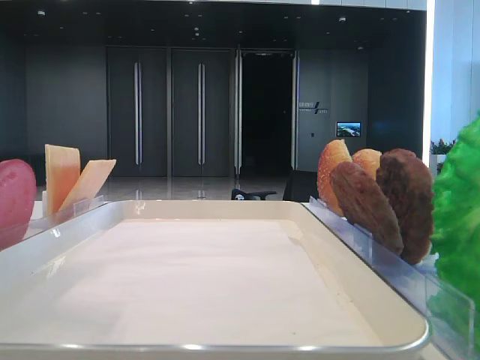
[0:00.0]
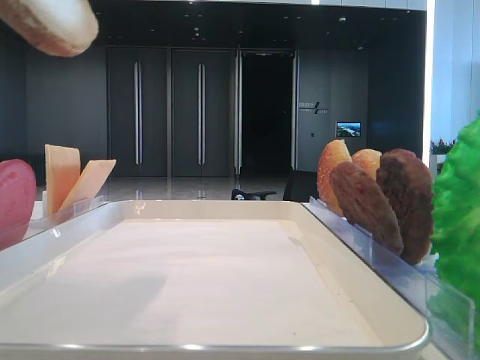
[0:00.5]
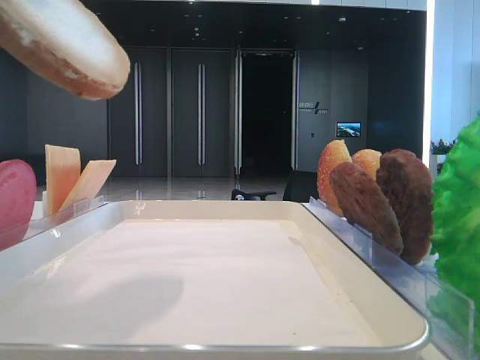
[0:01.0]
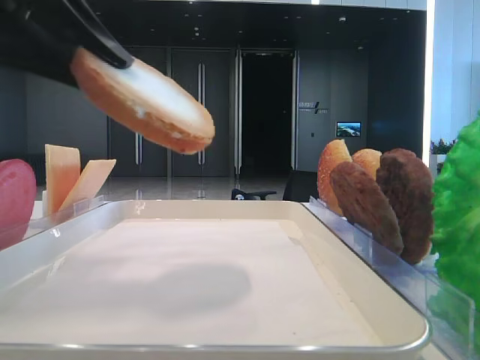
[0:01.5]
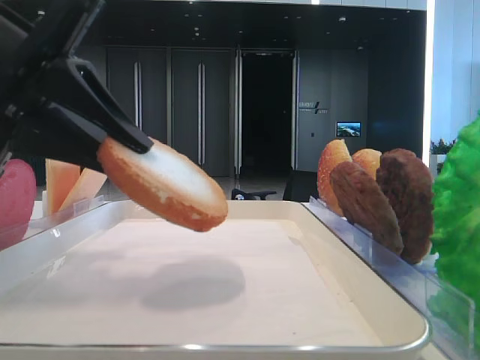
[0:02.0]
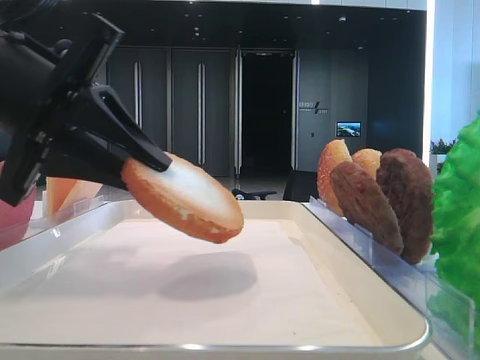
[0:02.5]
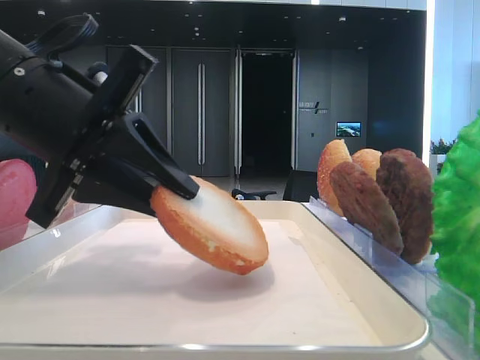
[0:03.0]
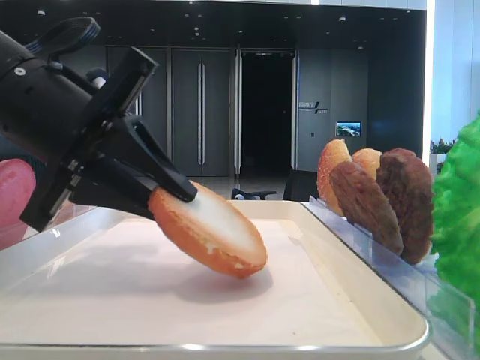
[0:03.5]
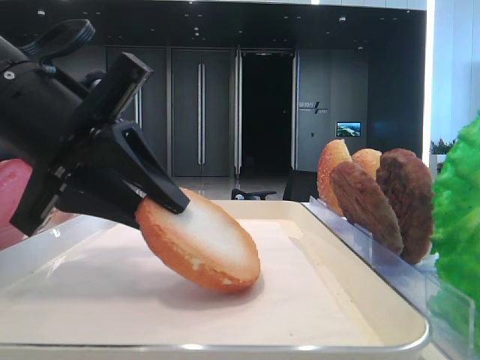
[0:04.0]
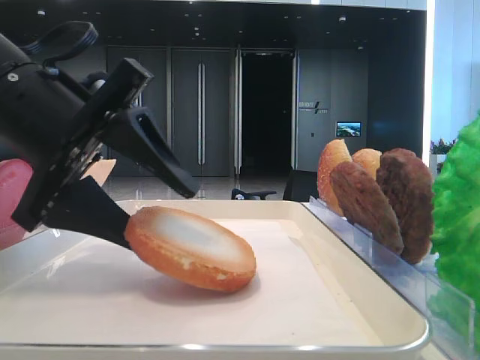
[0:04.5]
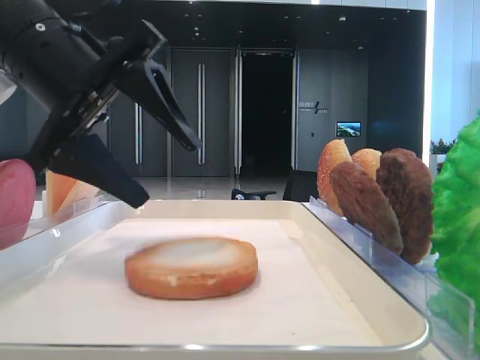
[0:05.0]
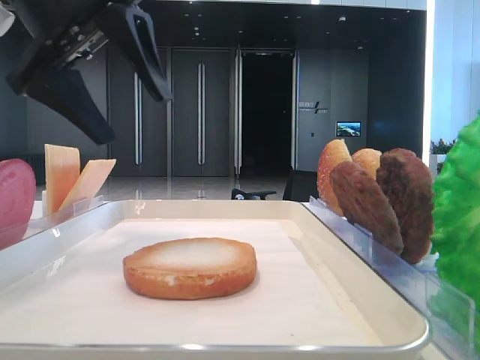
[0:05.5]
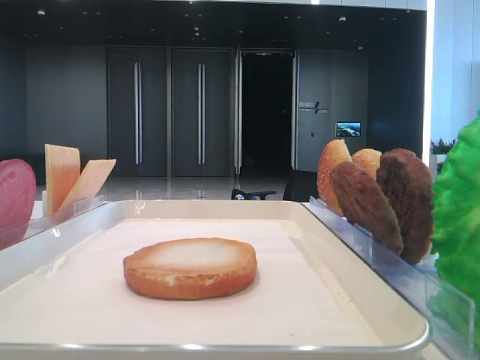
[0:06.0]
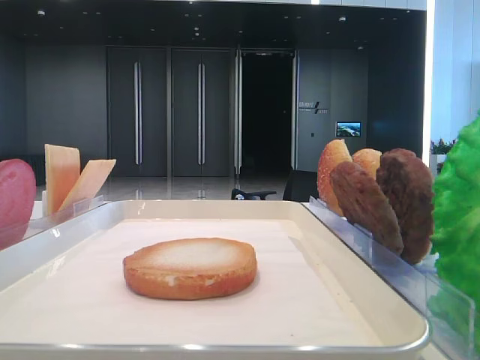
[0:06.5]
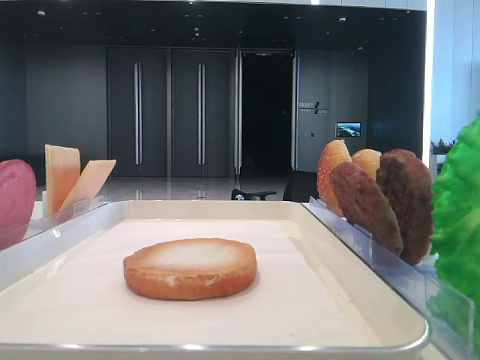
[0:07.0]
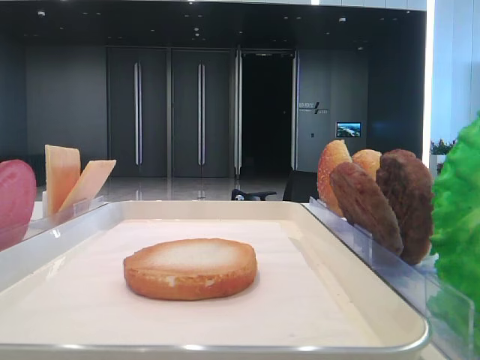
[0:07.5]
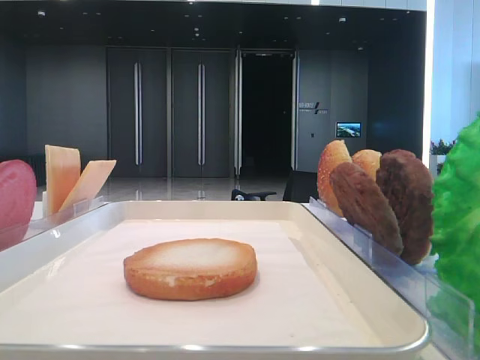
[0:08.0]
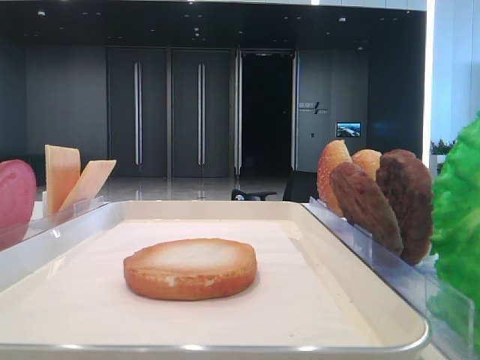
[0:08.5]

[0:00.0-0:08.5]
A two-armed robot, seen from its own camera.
Step, 0:00.0 to 0:04.5: Place the bread on the tray with the left hand.
0:00.0 to 0:02.0: The left gripper moves downward, some 10 cm.
0:02.0 to 0:04.0: The grippers move only a little.
0:04.0 to 0:06.5: The left gripper shifts some 25 cm upward and to the left, and opens.

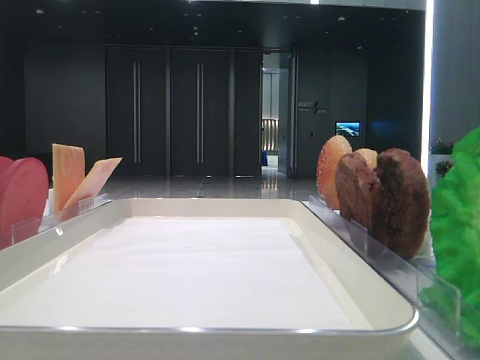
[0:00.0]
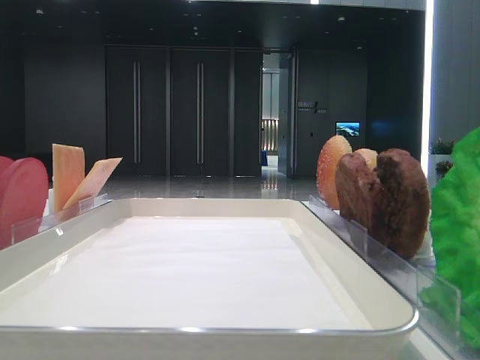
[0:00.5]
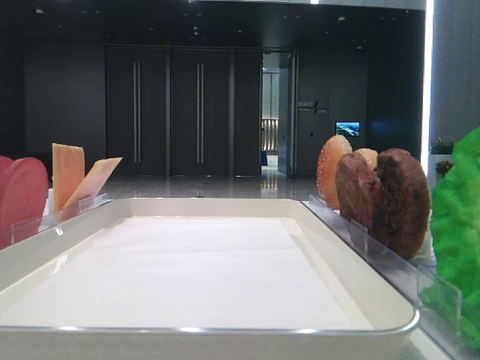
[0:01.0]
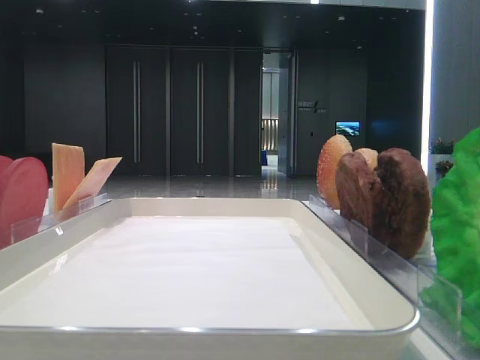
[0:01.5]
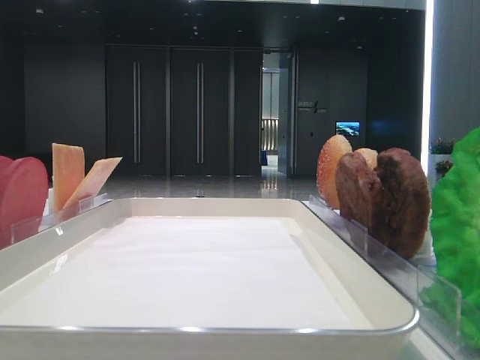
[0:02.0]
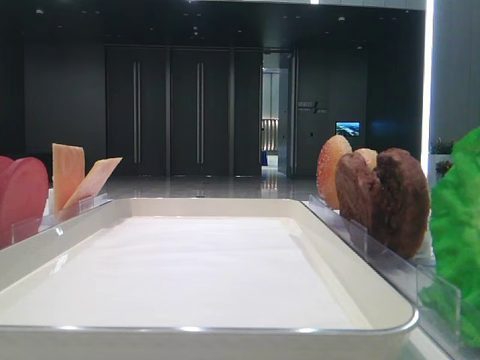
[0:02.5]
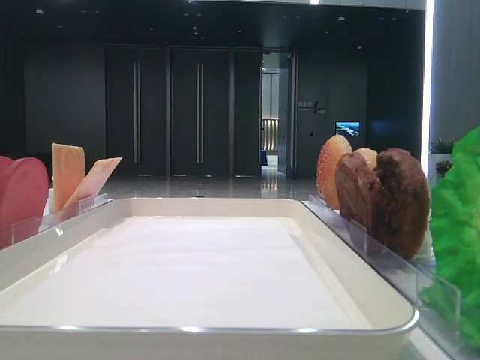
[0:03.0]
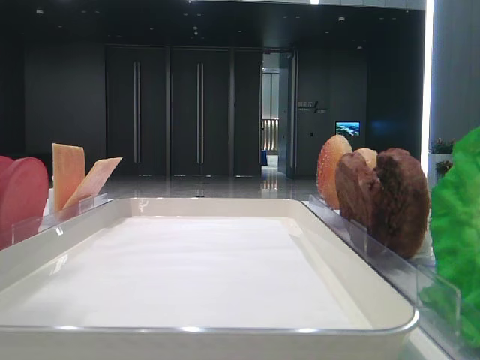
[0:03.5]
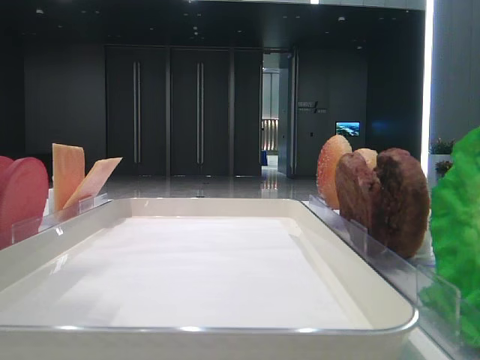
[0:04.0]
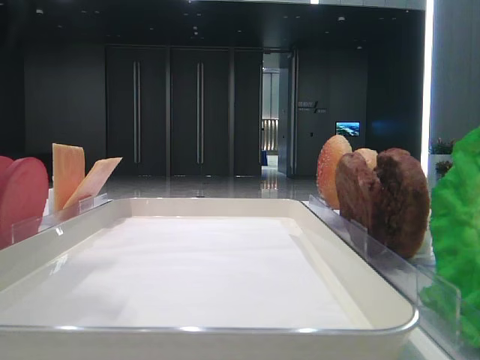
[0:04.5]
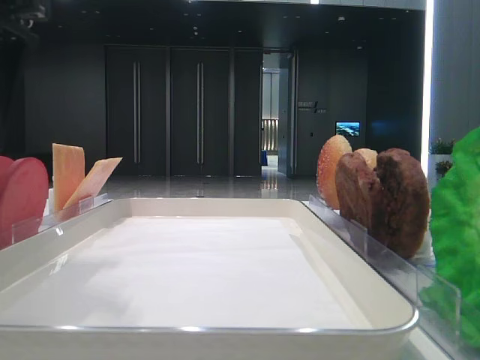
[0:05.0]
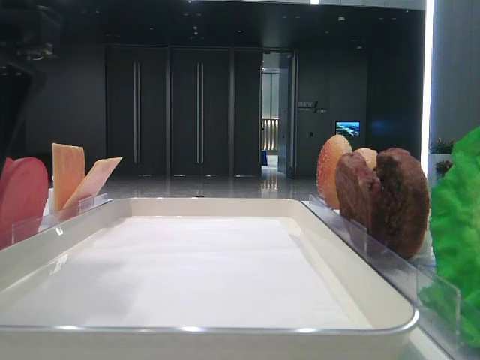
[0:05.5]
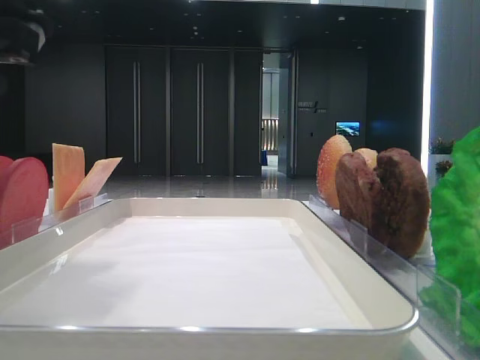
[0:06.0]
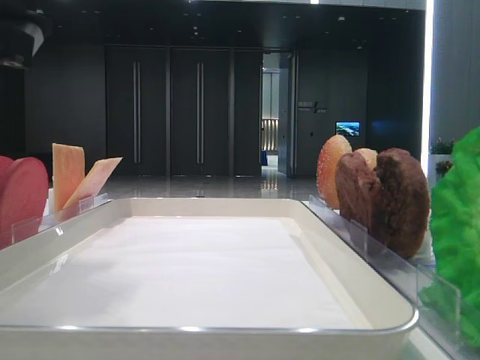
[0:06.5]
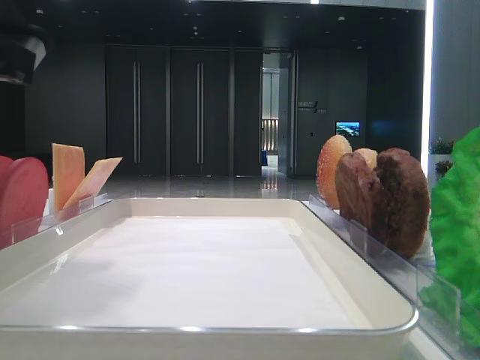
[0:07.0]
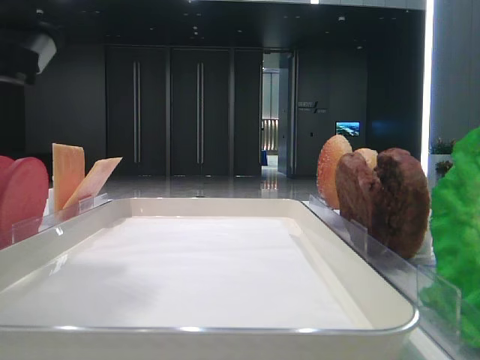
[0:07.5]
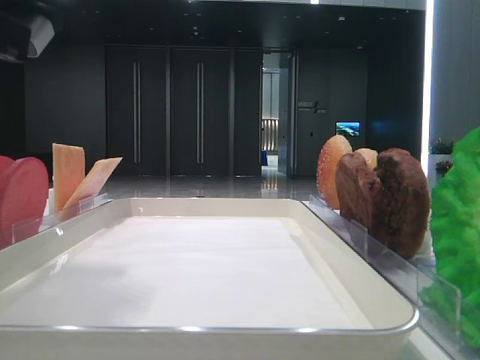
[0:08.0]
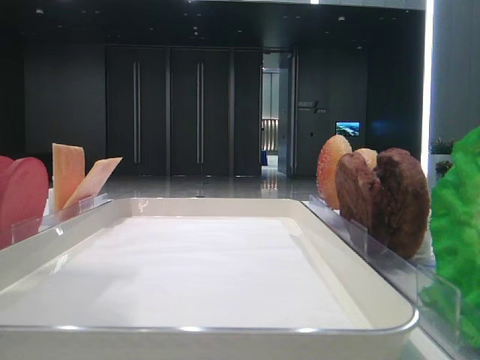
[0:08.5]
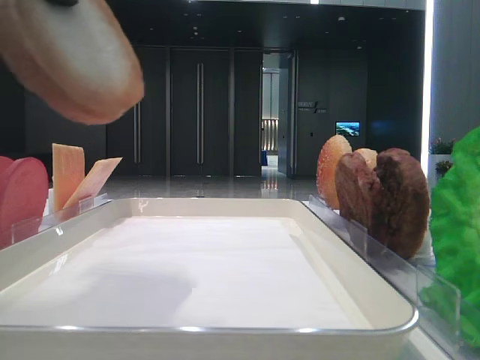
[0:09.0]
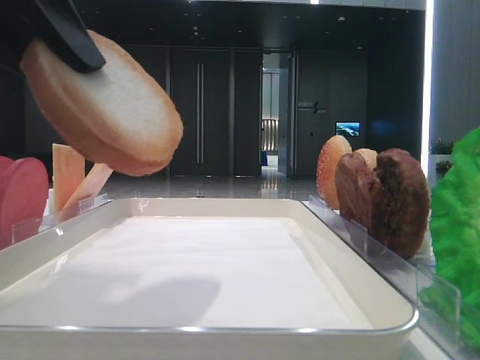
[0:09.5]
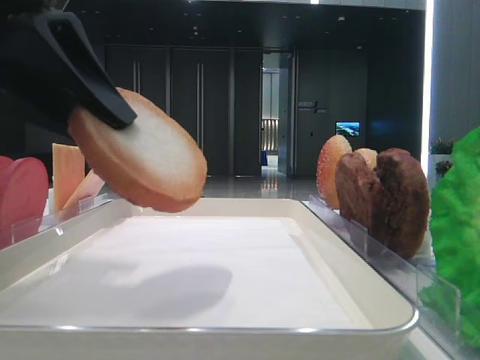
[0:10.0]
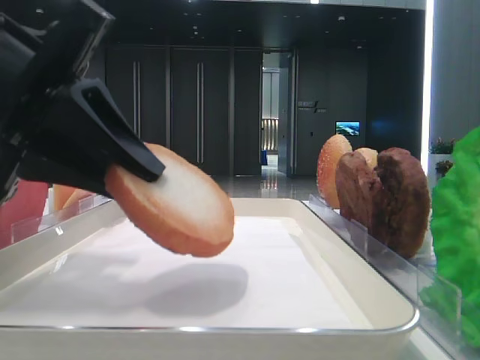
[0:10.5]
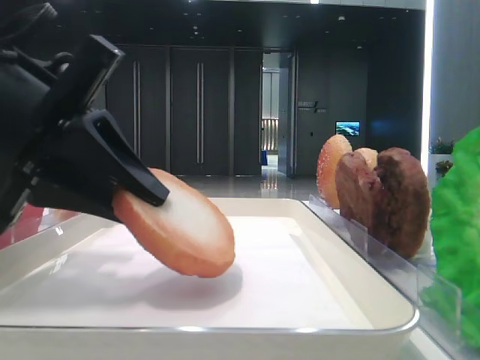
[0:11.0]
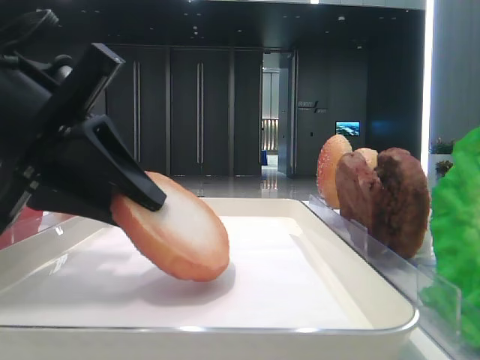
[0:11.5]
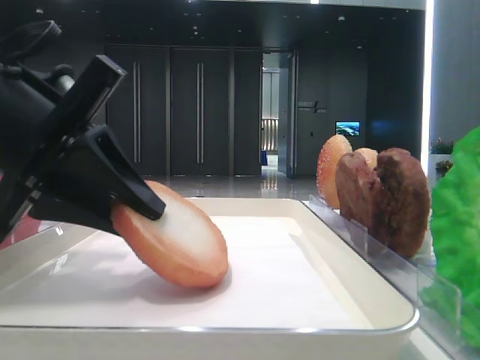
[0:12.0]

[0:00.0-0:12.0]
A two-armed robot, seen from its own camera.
Step, 0:00.0 to 0:07.5: Pick up the bottom bread with the left hand.
0:02.0 to 0:04.0: The left gripper moves to the right, roughly 10 cm.
0:04.0 to 0:06.0: The left gripper heads downward, covering approximately 5 cm, and closes up.
0:08.0 to 0:10.0: The left gripper moves about 10 cm upward and comes back.
0:10.0 to 0:12.0: The left gripper is displaced downward by approximately 5 cm.

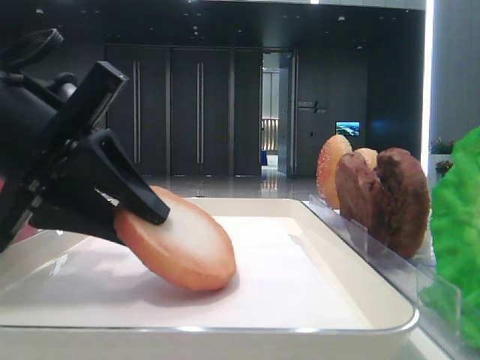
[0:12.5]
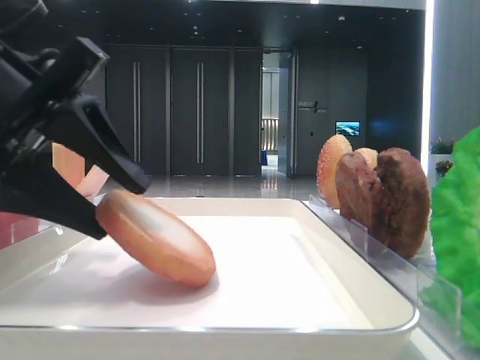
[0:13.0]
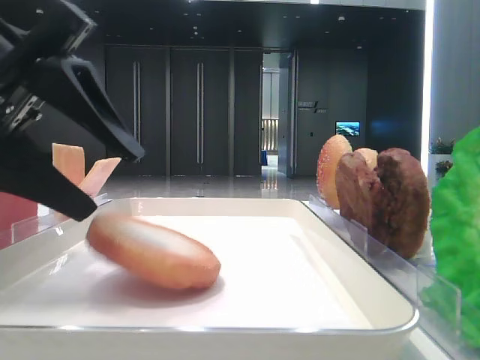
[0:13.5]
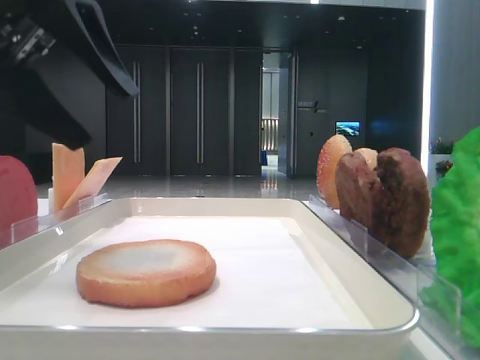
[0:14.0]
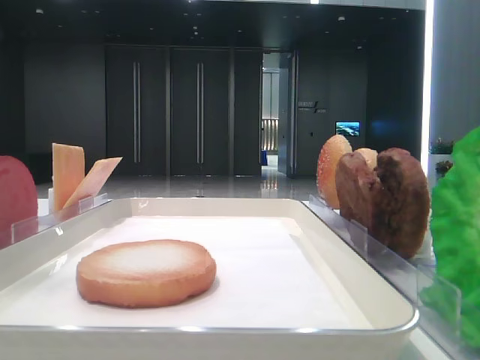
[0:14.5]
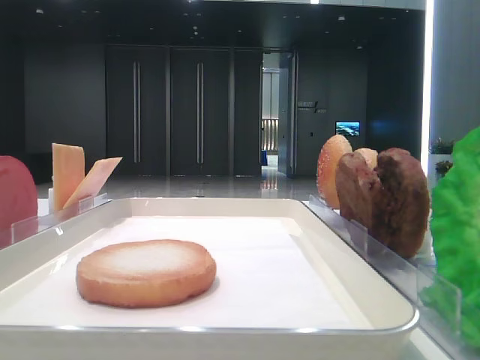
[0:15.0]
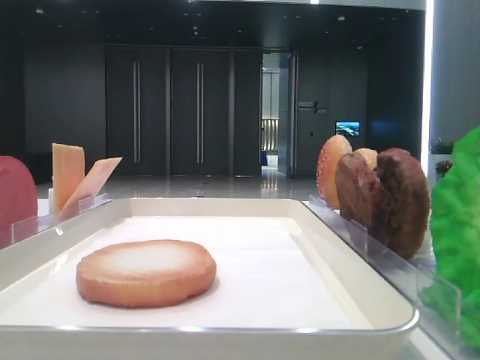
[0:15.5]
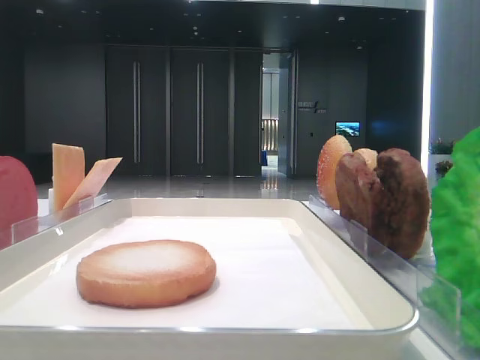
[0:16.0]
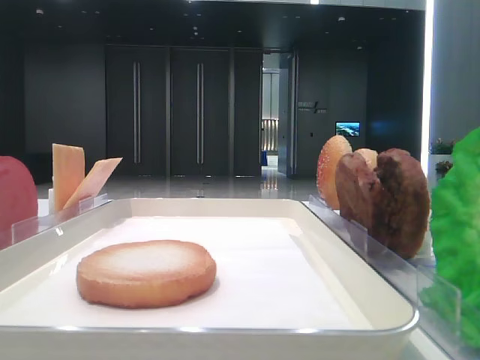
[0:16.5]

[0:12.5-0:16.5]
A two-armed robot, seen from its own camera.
0:12.5 to 0:14.5: The left gripper goes roughly 20 cm upward and to the left, and opens its fingers.

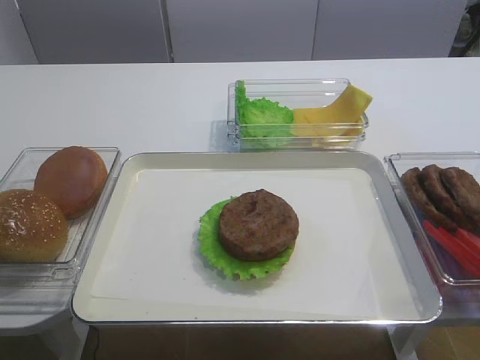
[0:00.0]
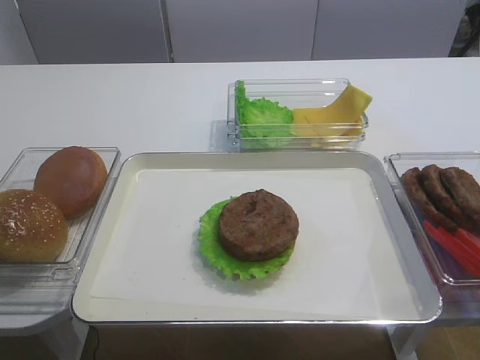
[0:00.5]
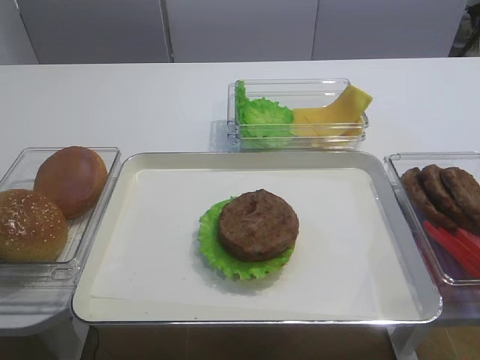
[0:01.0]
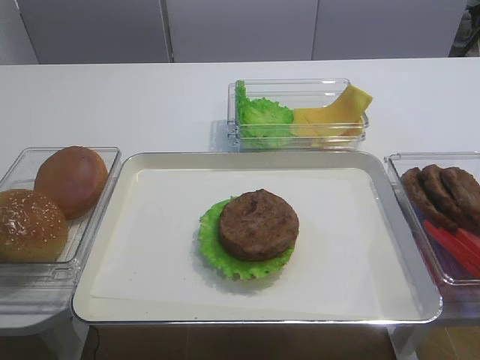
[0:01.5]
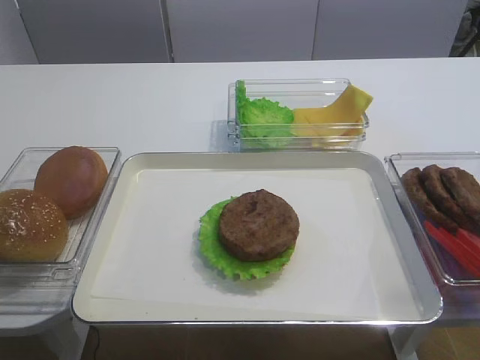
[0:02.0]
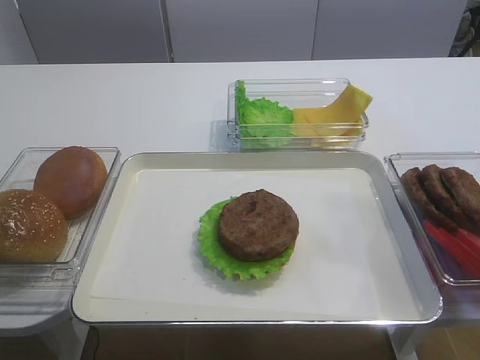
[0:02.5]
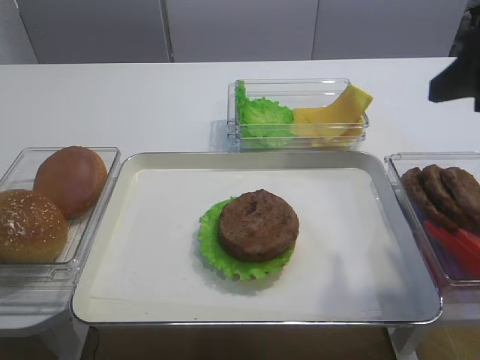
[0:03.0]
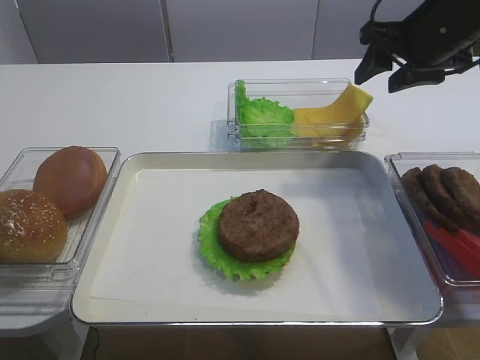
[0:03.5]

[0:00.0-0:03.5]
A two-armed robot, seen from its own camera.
0:02.0 to 0:03.5: The right gripper travels forward by roughly 40 cm.
